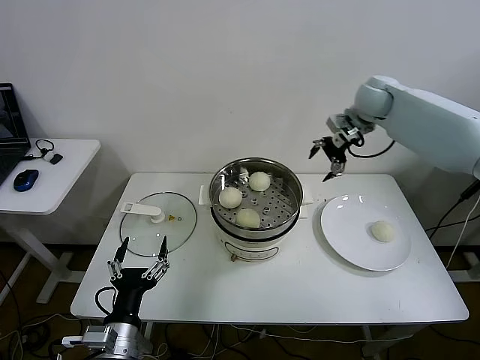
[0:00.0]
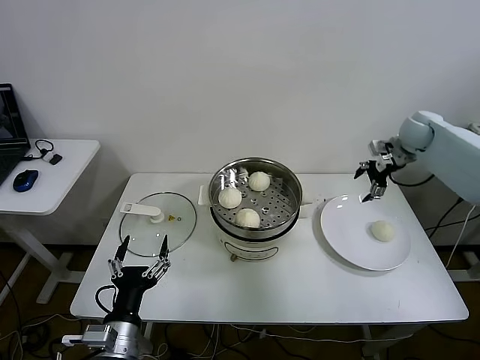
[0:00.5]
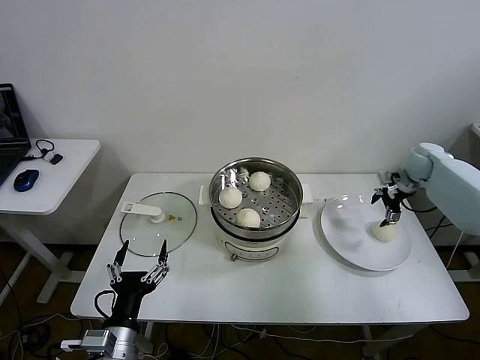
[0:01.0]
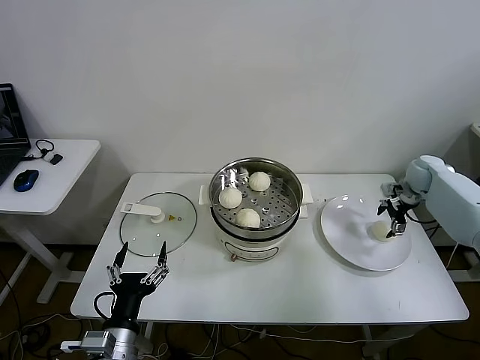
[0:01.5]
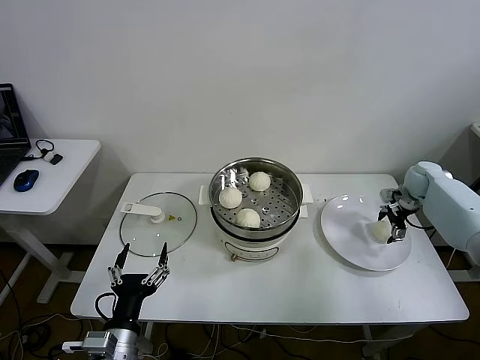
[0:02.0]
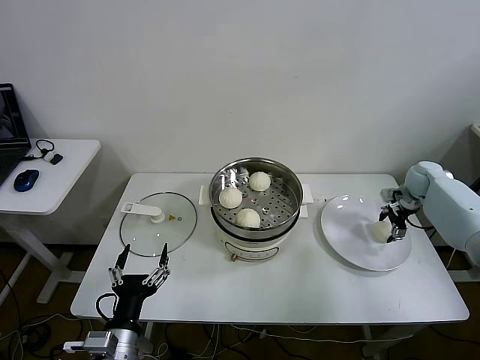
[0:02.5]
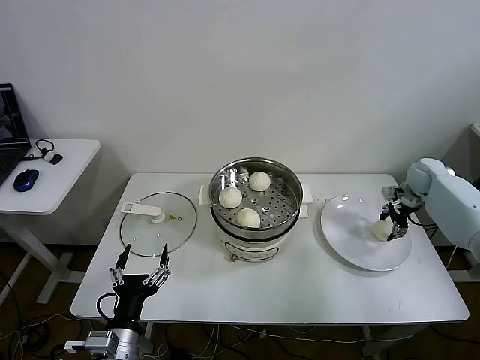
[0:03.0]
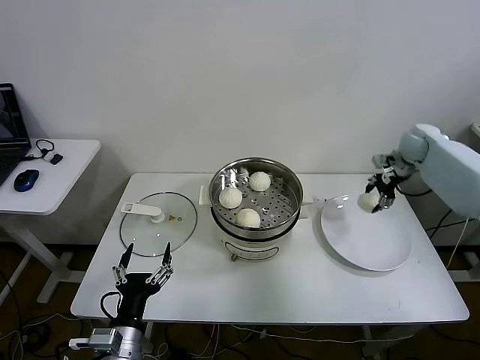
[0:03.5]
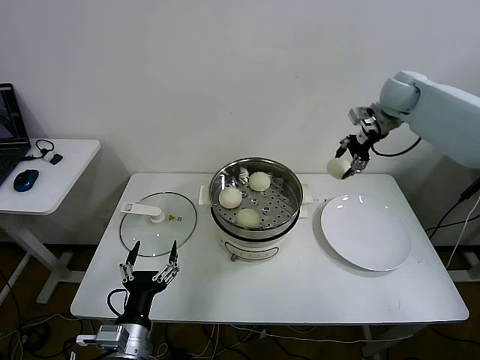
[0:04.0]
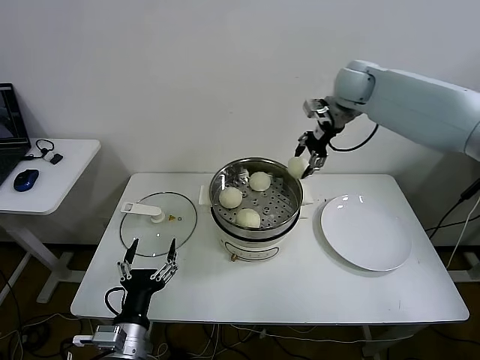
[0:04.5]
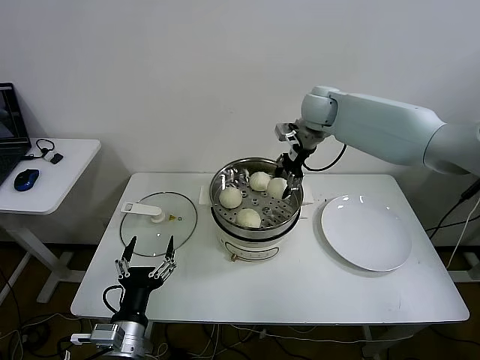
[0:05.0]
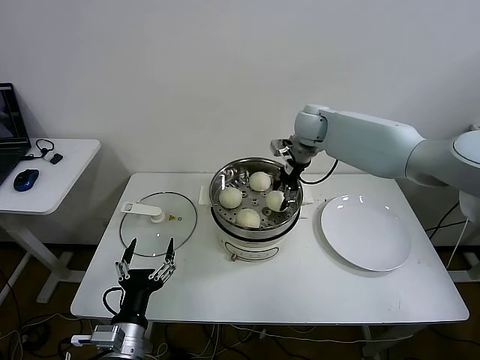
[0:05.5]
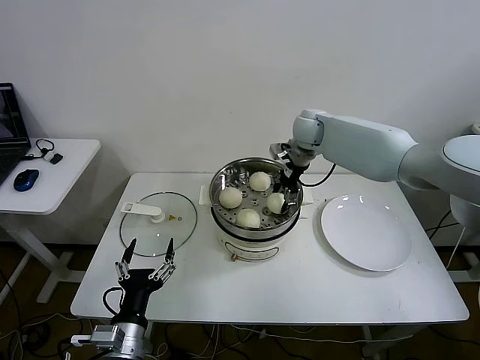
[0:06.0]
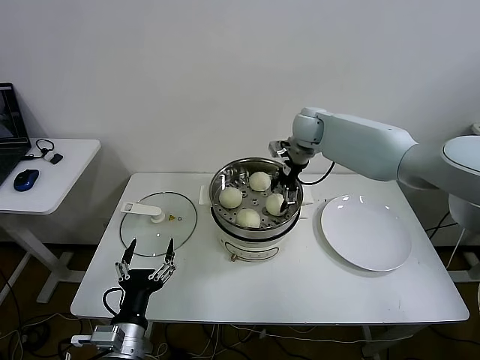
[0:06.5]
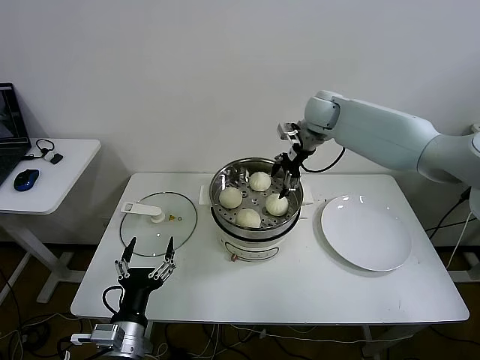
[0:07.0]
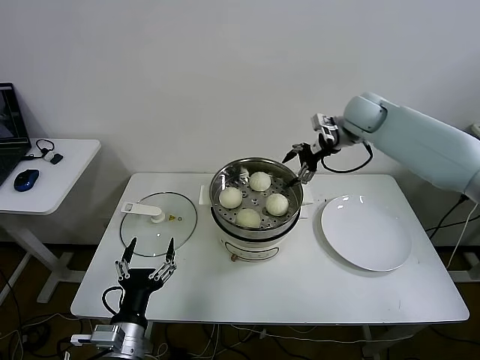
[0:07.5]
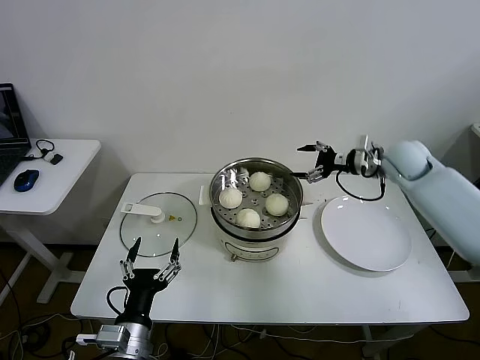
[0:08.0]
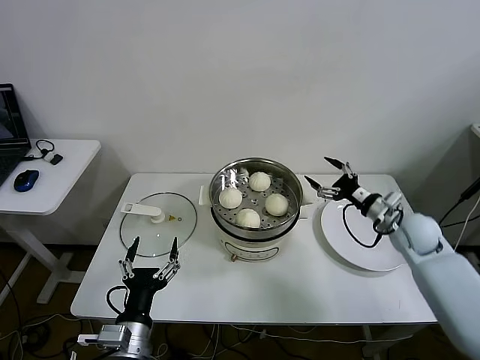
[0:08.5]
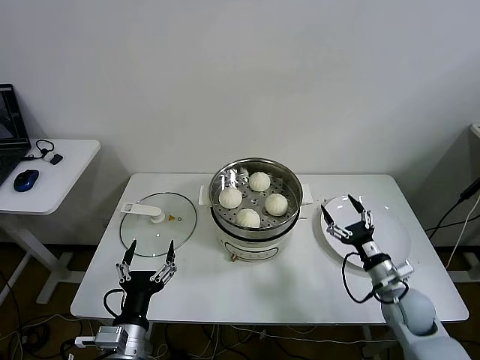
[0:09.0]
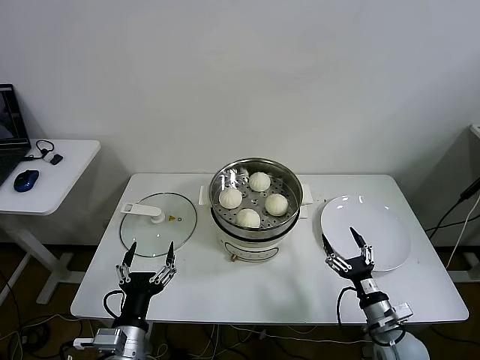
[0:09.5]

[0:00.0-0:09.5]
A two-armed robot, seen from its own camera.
Step, 0:00.0 to 0:02.5: Grasp the baozi in the plate with right gripper.
Step, 0:03.0 to 0:06.5: Place the baozi on the steamer with right gripper.
0:00.0 to 0:02.0: The right gripper goes roughly 30 cm downward and to the right.
0:02.0 to 0:04.0: The right gripper moves upward and to the left, approximately 25 cm, and closes its fingers.
0:04.0 to 0:05.5: The right gripper shifts about 20 cm to the left and downward.
0:05.5 to 0:07.5: The right gripper is displaced to the right by some 10 cm, and opens its fingers.
0:07.5 to 0:09.5: The right gripper is displaced backward and downward by roughly 50 cm.
